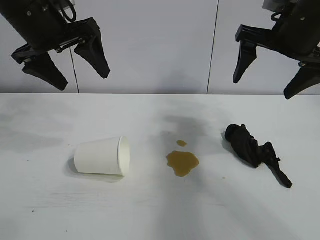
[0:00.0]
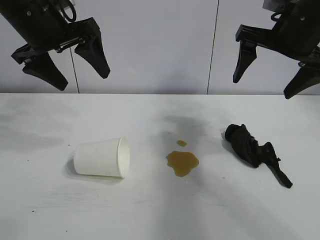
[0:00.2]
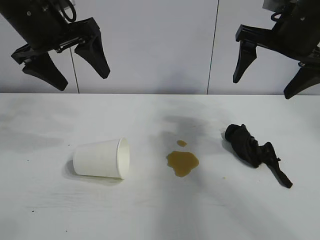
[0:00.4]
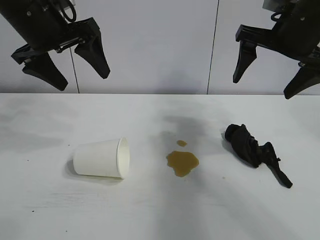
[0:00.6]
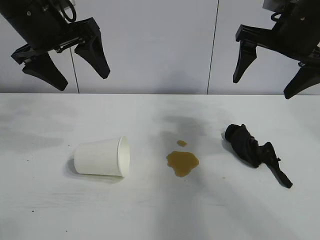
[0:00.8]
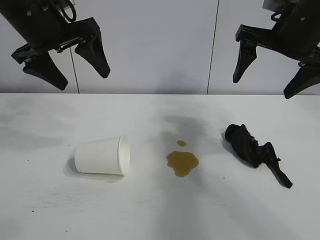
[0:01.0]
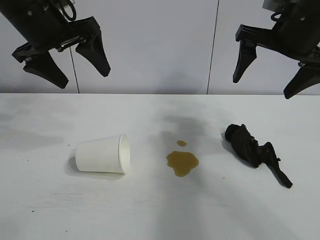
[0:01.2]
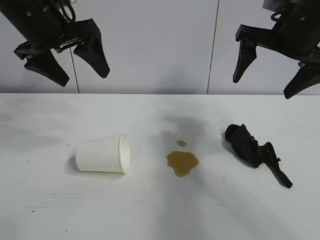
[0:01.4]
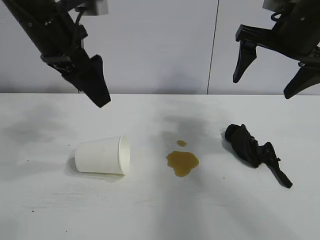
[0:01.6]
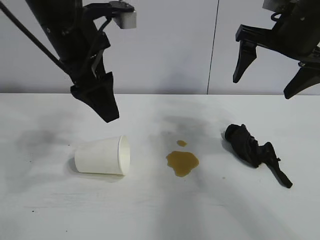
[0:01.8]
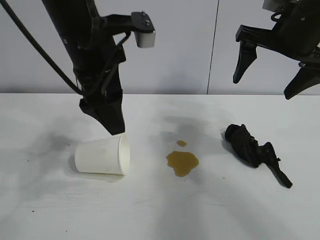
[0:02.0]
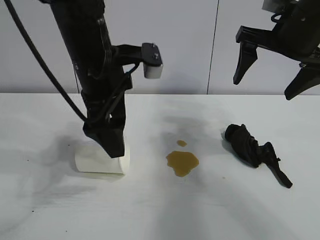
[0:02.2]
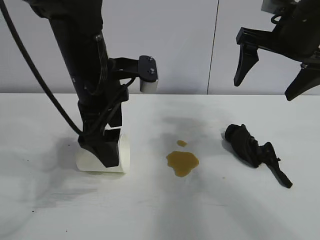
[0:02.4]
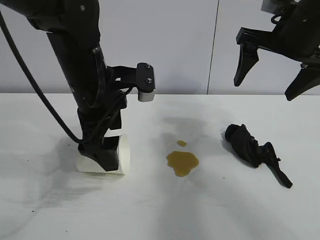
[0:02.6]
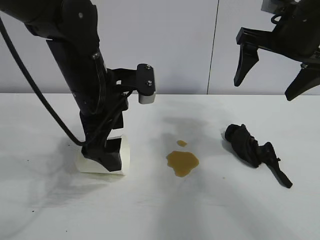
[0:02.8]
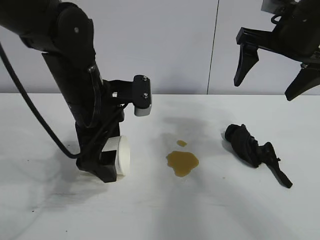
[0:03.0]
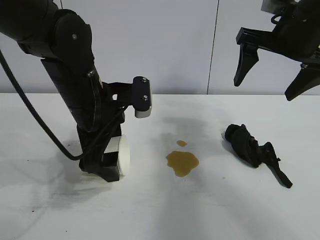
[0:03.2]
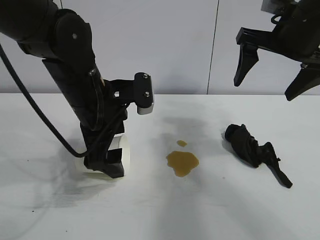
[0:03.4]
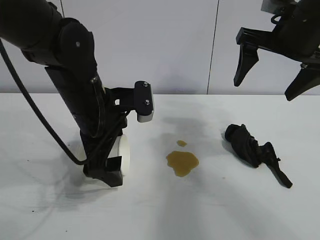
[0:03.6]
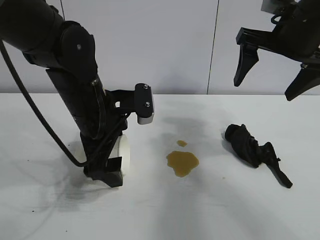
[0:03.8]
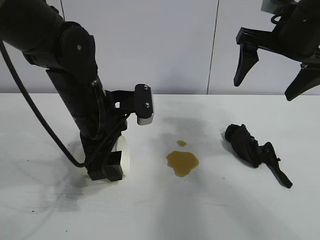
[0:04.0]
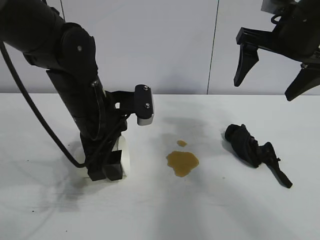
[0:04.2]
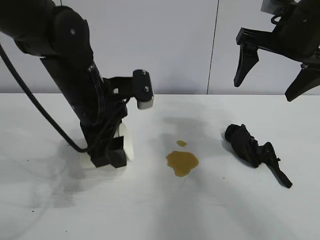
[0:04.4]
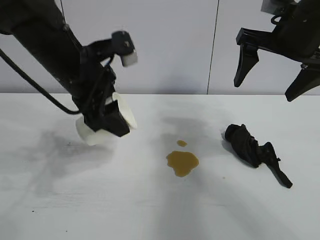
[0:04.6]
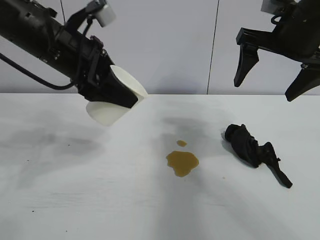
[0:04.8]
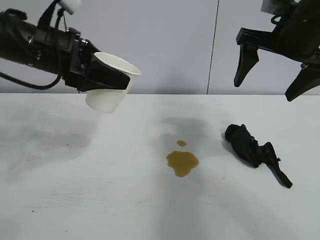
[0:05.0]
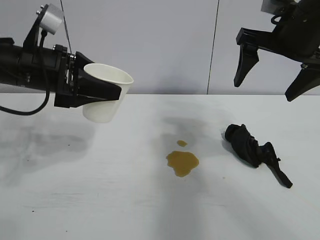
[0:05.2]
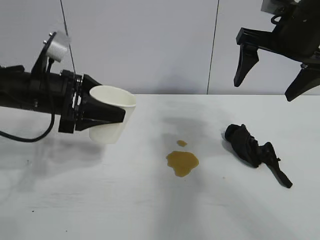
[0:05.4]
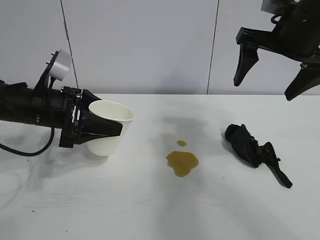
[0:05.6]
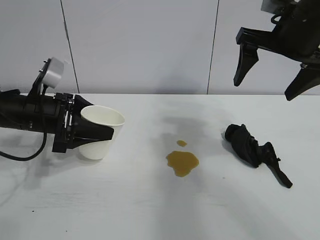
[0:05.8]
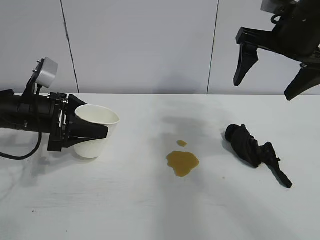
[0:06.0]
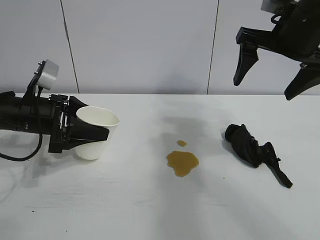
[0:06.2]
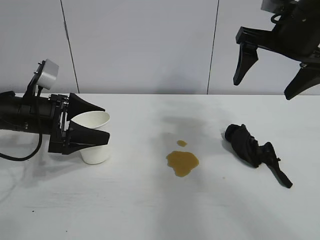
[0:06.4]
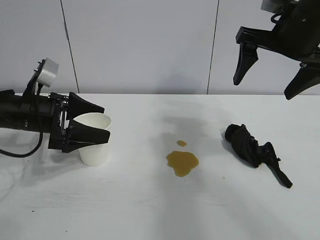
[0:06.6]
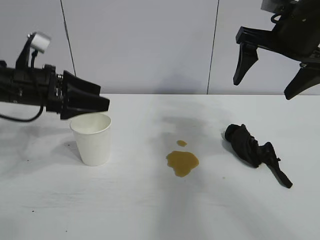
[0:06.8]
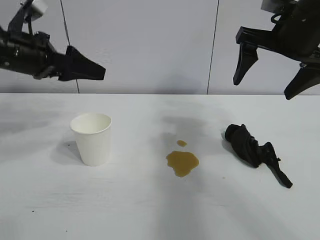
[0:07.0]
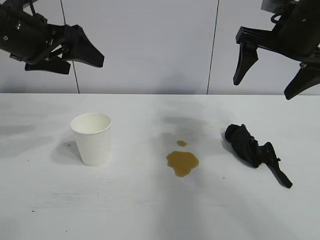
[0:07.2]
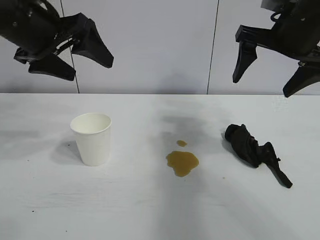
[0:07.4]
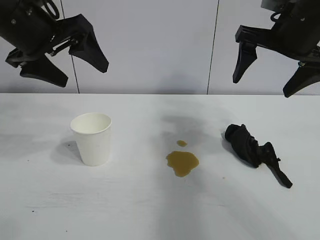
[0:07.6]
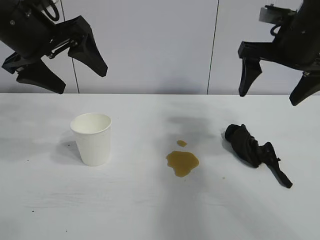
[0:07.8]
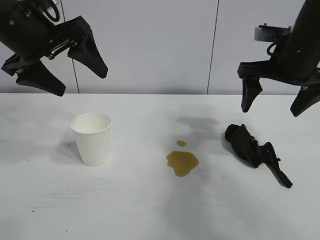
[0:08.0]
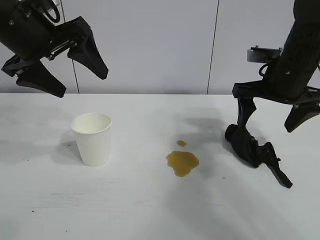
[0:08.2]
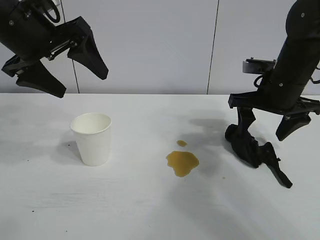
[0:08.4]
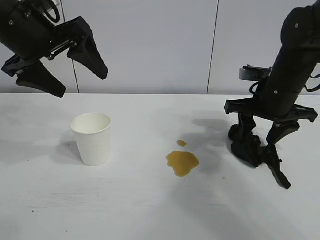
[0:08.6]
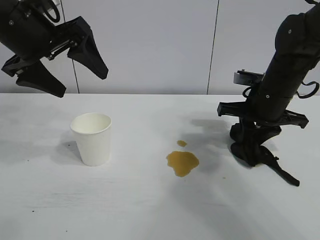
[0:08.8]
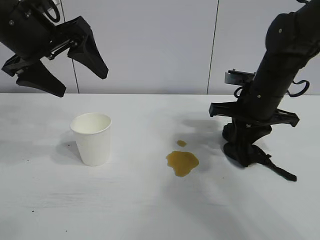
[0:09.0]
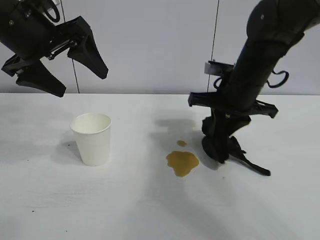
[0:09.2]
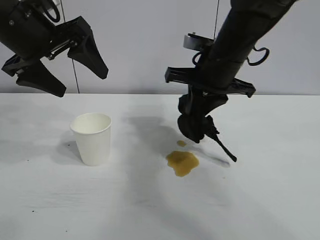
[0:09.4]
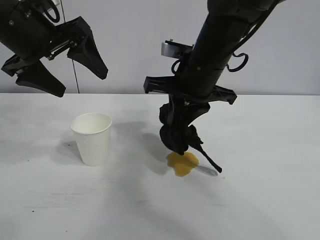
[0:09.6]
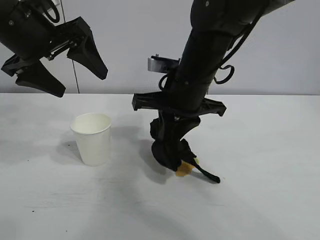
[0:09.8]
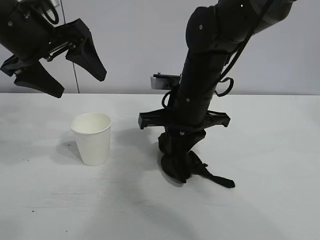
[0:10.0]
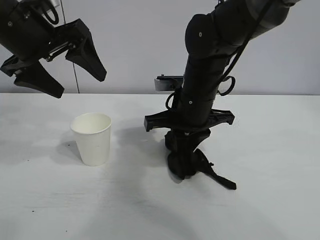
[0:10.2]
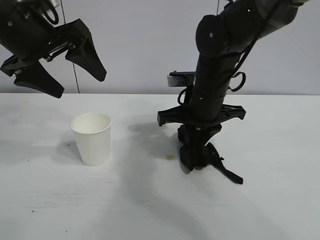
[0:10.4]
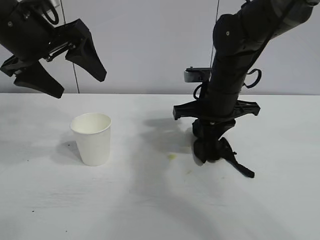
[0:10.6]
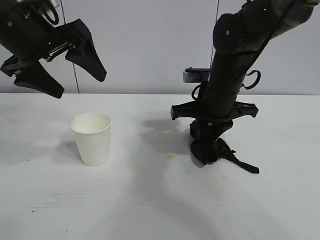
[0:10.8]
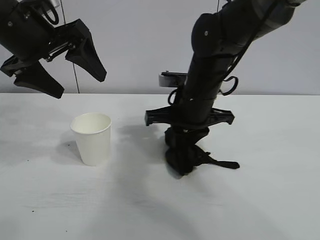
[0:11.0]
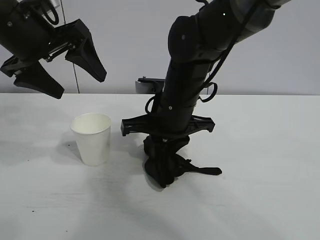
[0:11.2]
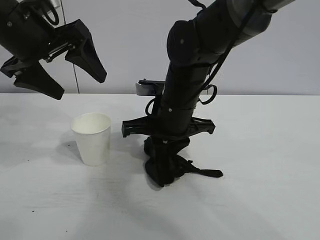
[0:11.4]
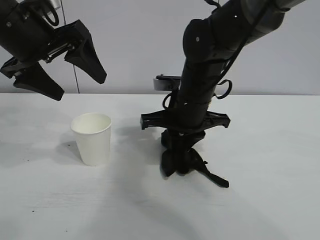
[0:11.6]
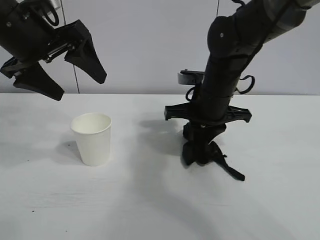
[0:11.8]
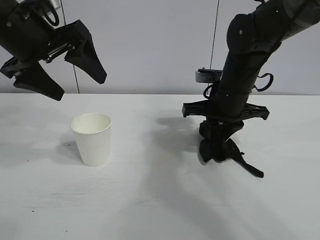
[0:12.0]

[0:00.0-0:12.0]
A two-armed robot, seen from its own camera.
Task of the whole recording: the left gripper pick up the fallen cup and place it upright, the right gripper grasp the black rag and wipe the stain on the table, the right gripper put the black rag back in its original position.
Step, 0:01.4 to 0:03.8: Grasp the paper cup with left gripper.
Step, 0:04.0 to 0:06.2: Stand the paper cup upright with left gripper.
Step, 0:06.6 to 0:08.8: Grasp the rag with right gripper.
